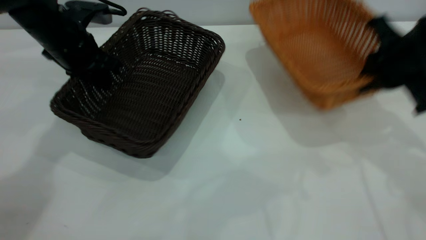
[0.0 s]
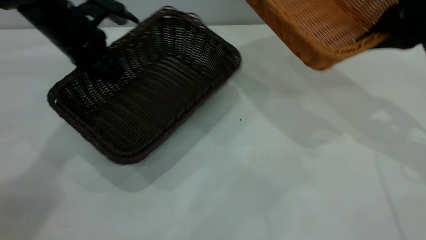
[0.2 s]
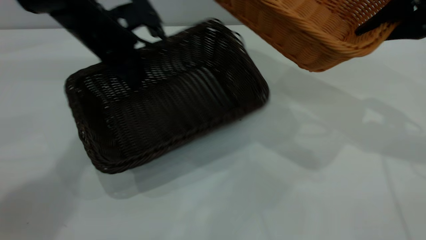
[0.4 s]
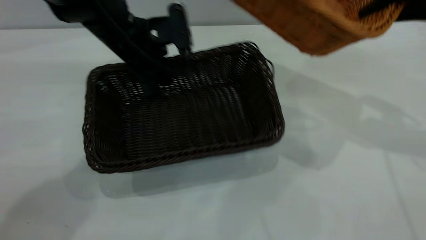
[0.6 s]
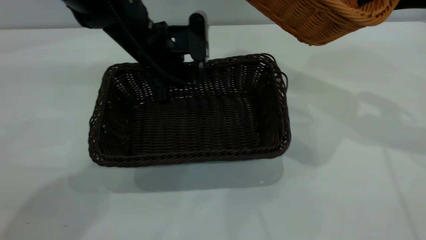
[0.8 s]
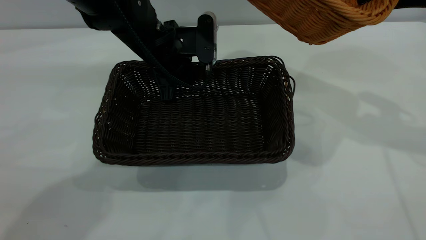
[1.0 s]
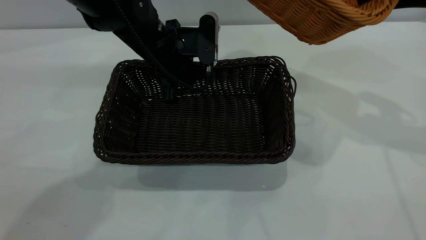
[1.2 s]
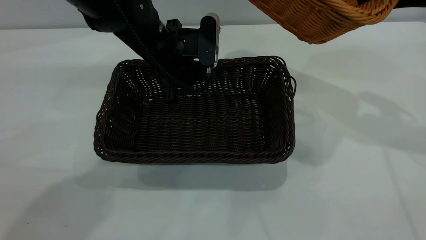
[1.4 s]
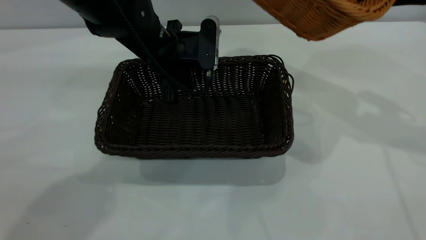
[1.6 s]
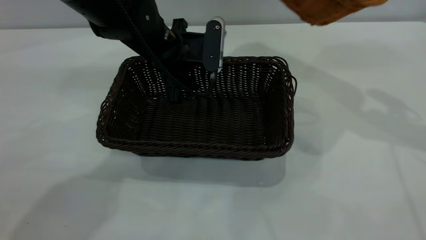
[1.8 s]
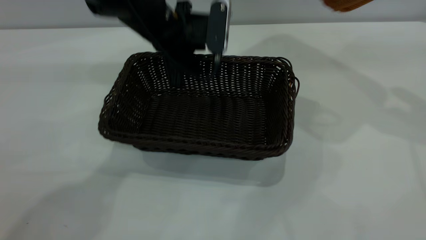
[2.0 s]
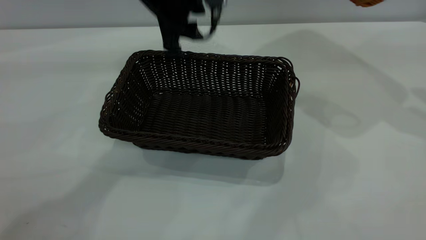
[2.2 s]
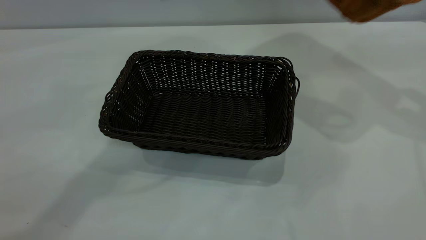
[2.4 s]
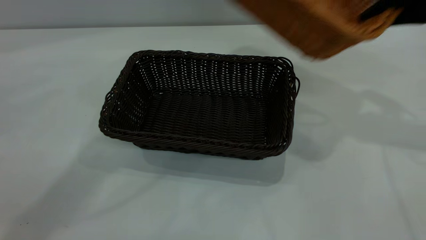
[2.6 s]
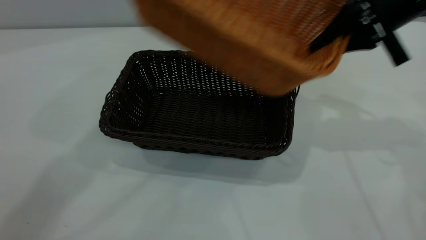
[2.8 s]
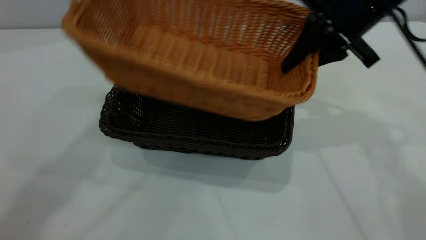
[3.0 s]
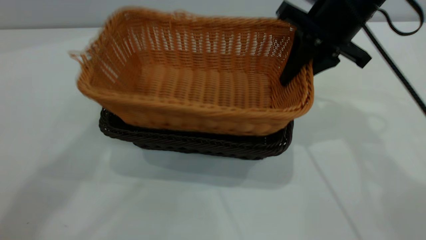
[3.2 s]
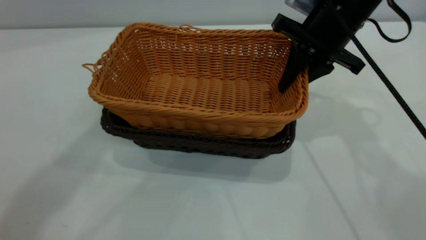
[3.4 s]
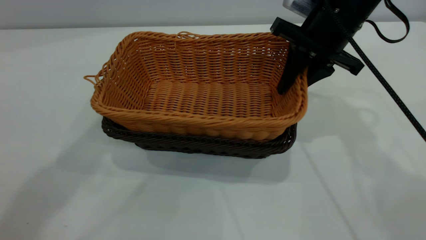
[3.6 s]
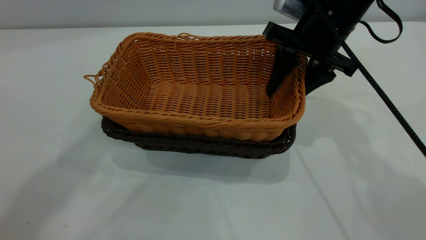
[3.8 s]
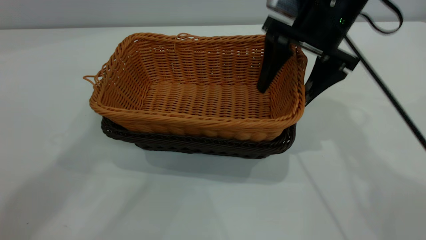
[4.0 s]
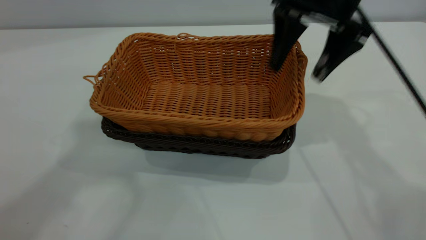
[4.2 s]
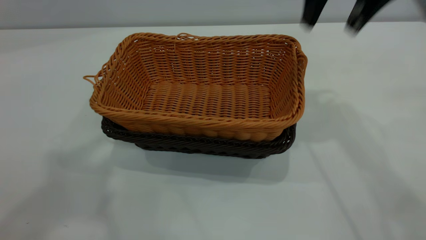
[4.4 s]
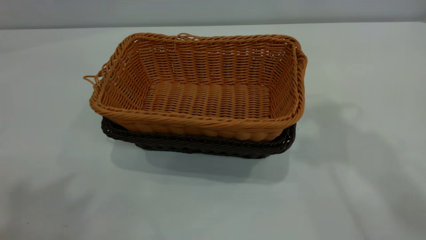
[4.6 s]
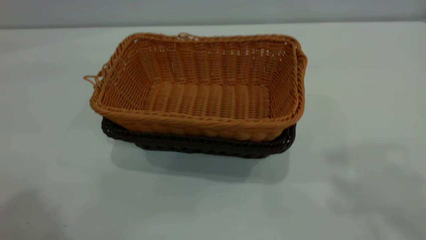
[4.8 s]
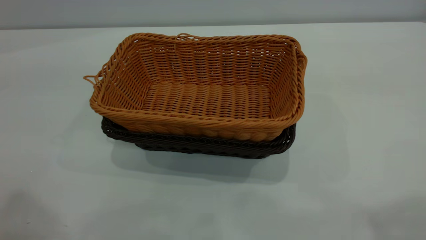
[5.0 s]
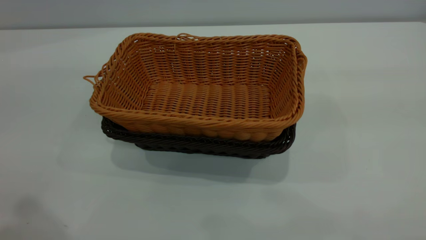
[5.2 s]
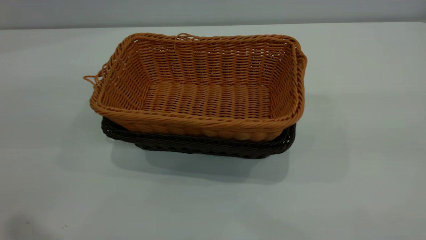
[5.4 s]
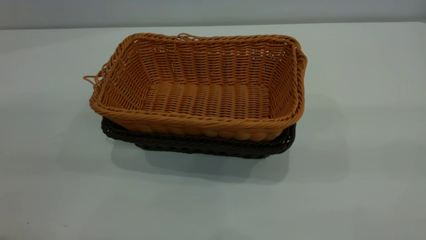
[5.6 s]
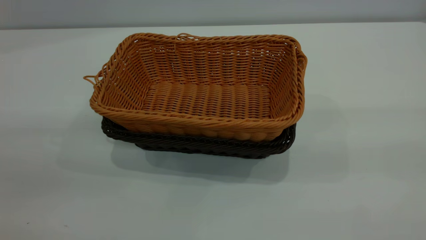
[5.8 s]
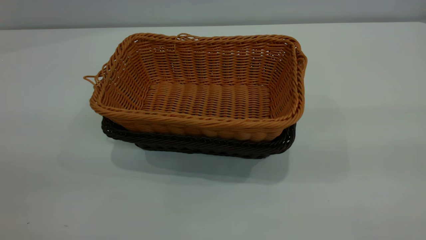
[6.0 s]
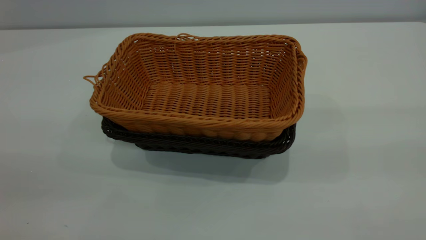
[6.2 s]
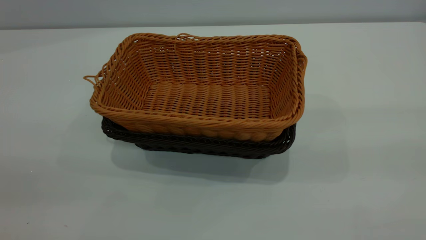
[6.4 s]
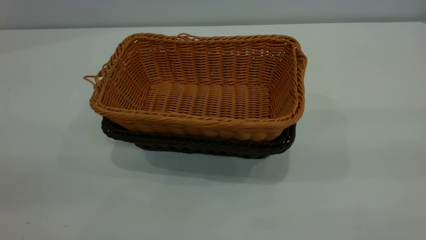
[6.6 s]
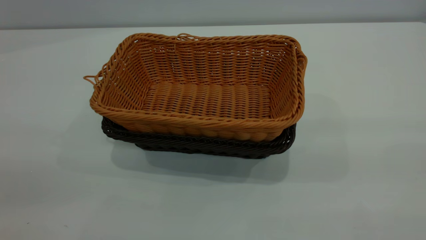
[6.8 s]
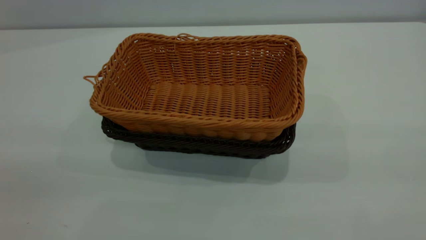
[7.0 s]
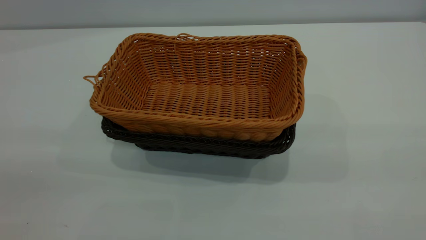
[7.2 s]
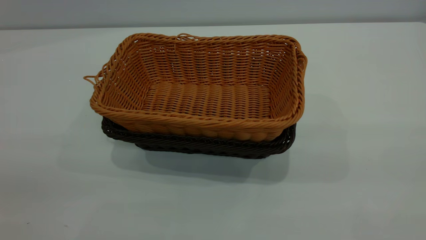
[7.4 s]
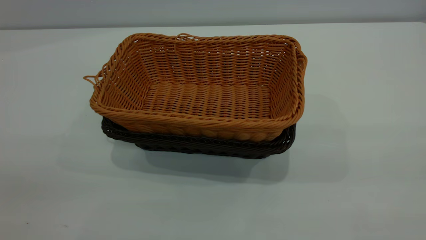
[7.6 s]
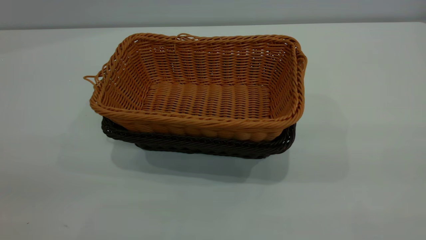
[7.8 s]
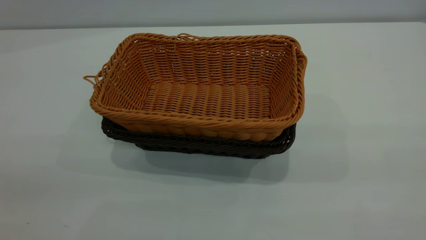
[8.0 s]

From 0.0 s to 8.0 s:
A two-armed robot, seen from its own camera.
Task of the whole recording: the left gripper grasp the black basket and place it in the center of the table, the right gripper grasp the brown basket and place it inside the black one.
Step, from 0.0 s to 2.0 s: Move the dark basket to the center of view.
Step, from 2.2 s to 4.2 s: Place the light basket on the dark basket.
From 0.0 s to 1.6 s: The left gripper heads to the right, covering roughly 15 cm, and opens up. Meanwhile the right gripper travels upward by about 10 cm.
From 1.6 s to 3.2 s: The left gripper travels upward by roughly 40 cm. Meanwhile the right gripper shifts about 15 cm to the left and downward.
From 3.2 s to 4.8 s: The left gripper moves backward and to the left, roughly 20 cm, while the right gripper travels upward and backward by roughly 35 cm, and opens its fingers.
